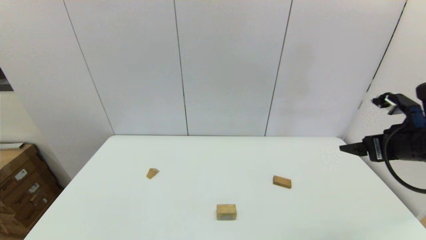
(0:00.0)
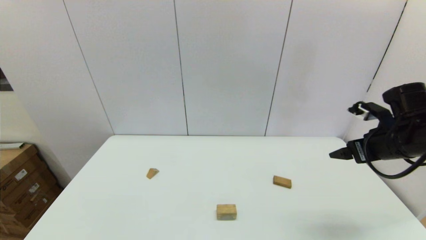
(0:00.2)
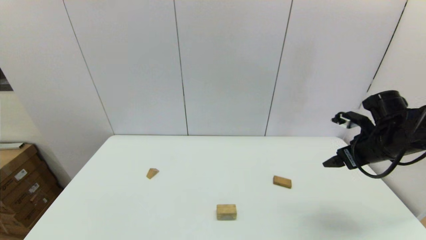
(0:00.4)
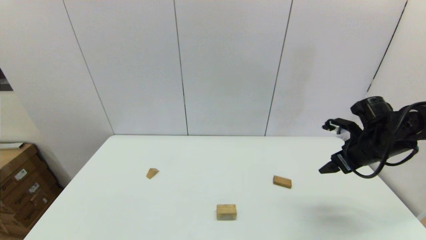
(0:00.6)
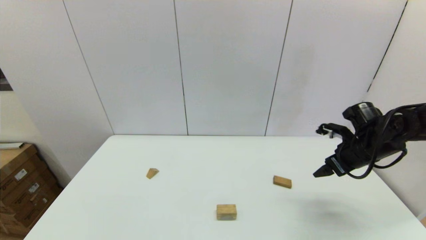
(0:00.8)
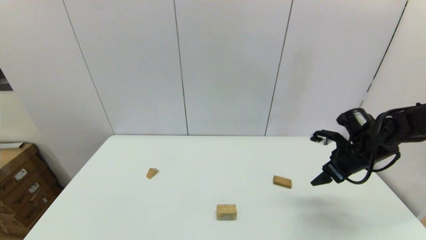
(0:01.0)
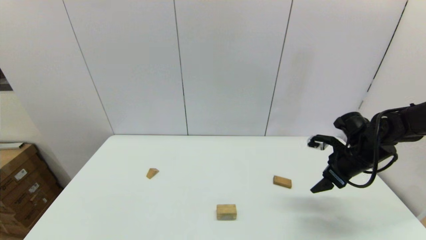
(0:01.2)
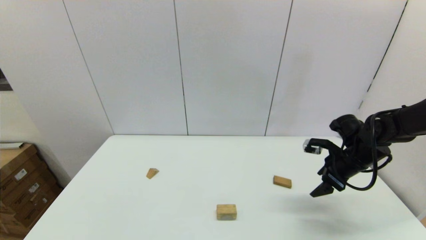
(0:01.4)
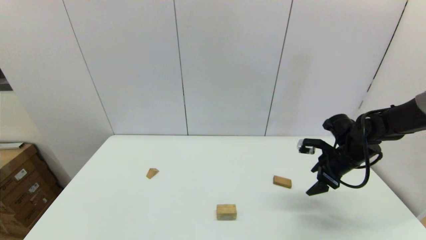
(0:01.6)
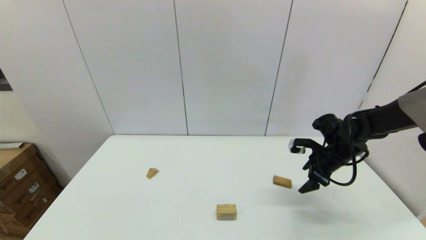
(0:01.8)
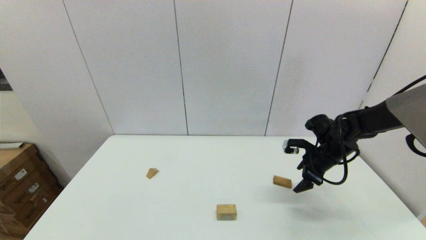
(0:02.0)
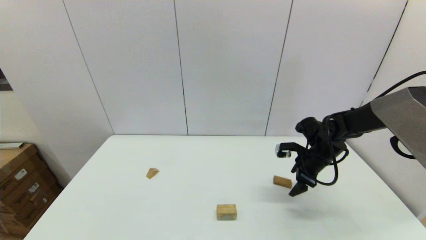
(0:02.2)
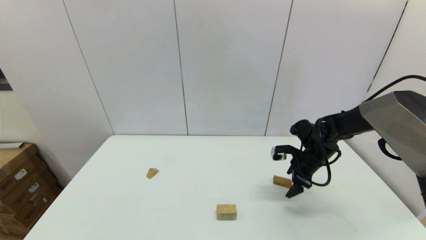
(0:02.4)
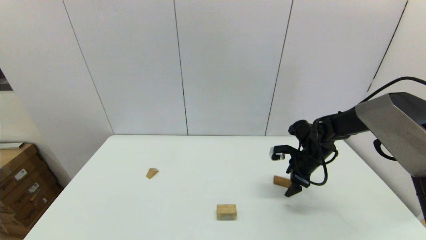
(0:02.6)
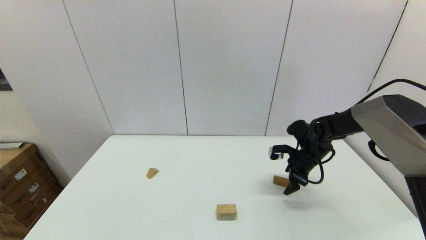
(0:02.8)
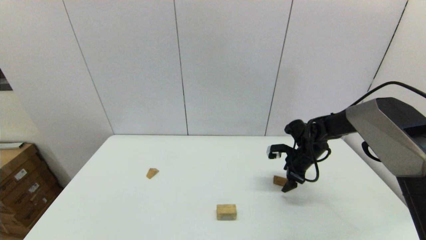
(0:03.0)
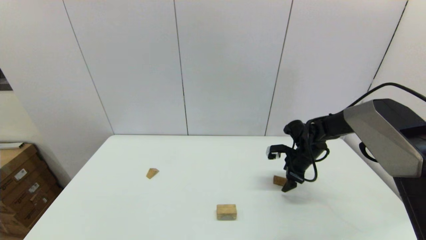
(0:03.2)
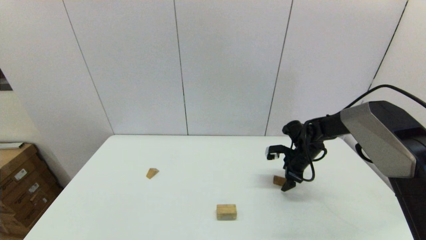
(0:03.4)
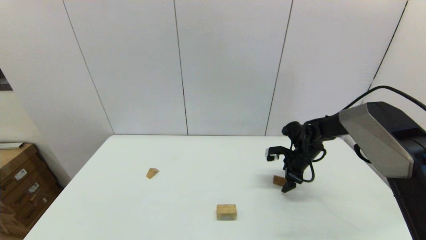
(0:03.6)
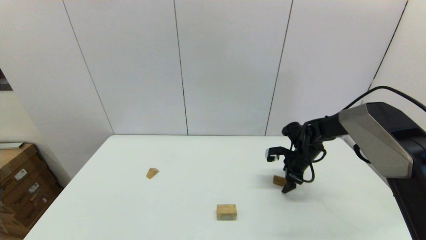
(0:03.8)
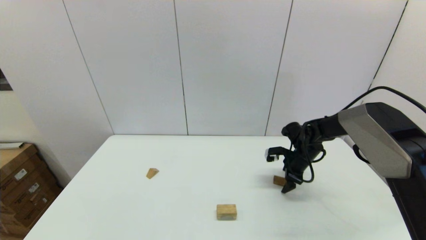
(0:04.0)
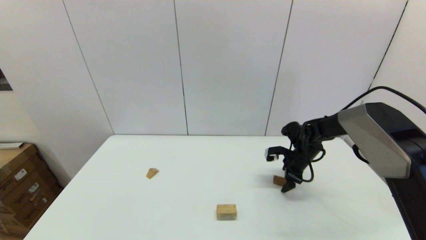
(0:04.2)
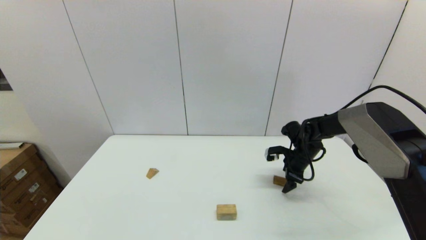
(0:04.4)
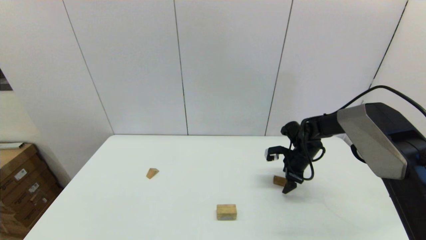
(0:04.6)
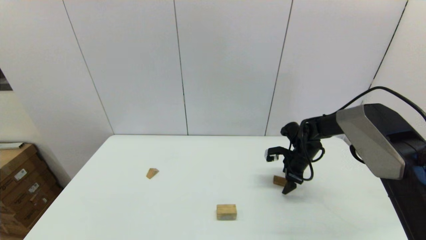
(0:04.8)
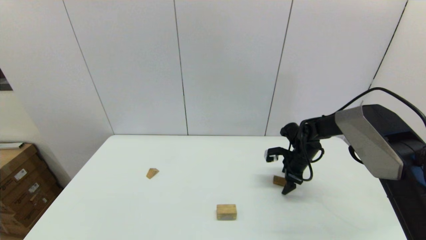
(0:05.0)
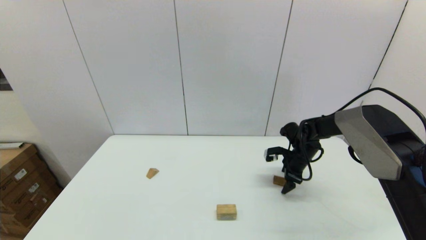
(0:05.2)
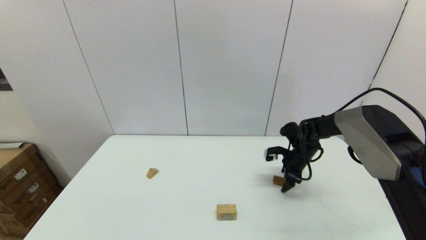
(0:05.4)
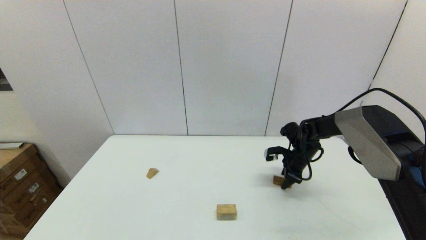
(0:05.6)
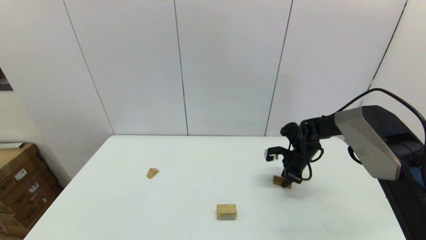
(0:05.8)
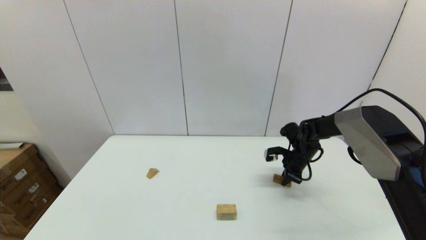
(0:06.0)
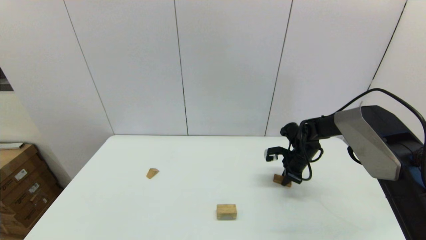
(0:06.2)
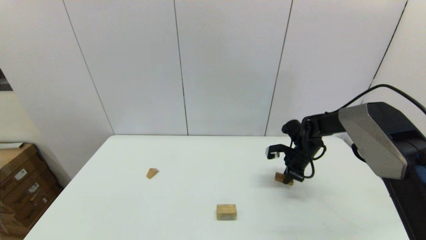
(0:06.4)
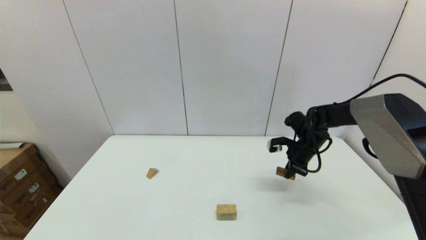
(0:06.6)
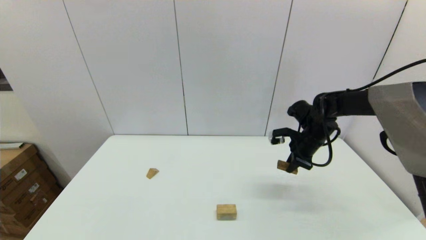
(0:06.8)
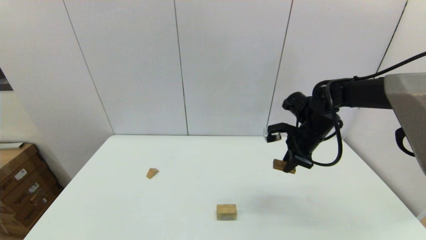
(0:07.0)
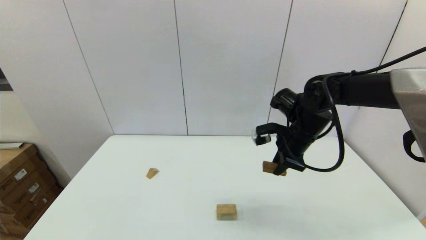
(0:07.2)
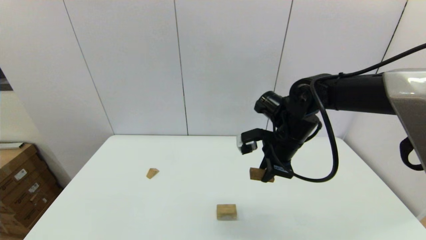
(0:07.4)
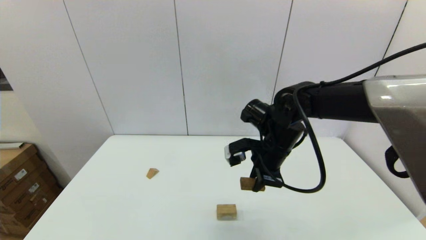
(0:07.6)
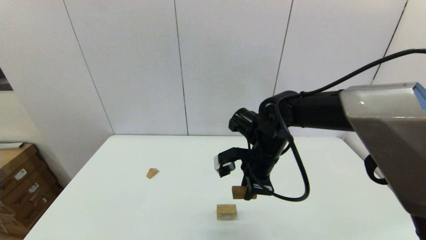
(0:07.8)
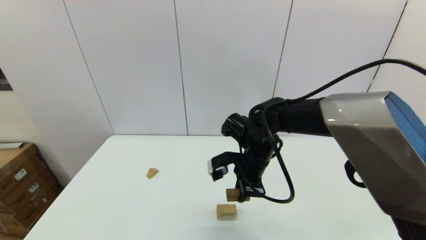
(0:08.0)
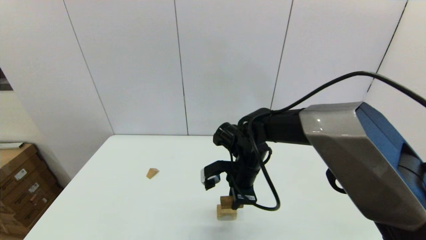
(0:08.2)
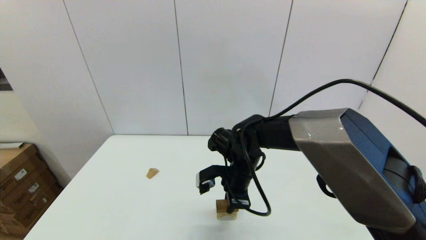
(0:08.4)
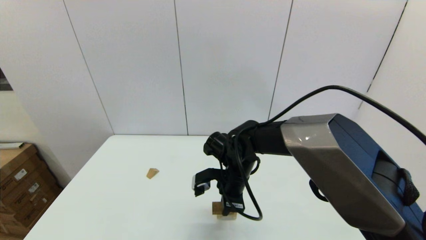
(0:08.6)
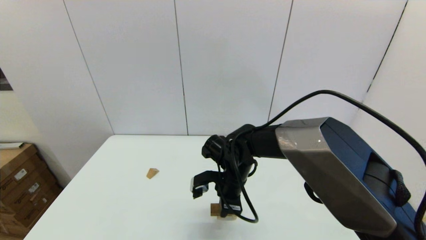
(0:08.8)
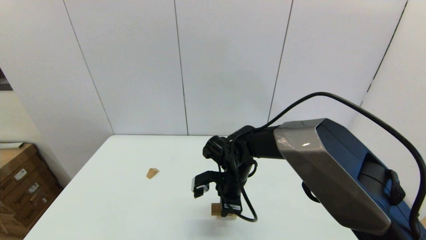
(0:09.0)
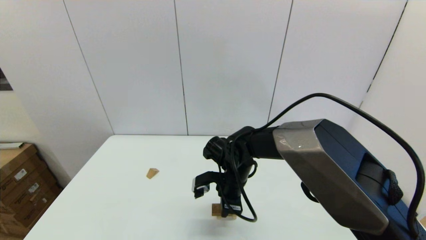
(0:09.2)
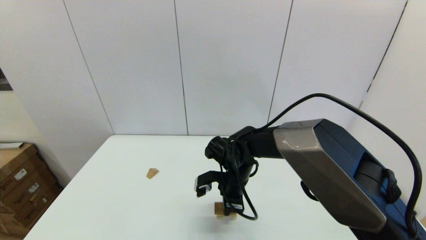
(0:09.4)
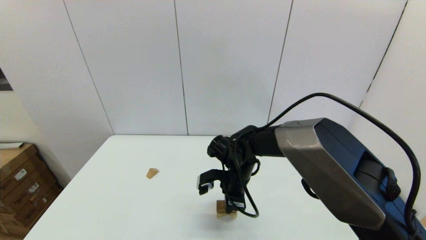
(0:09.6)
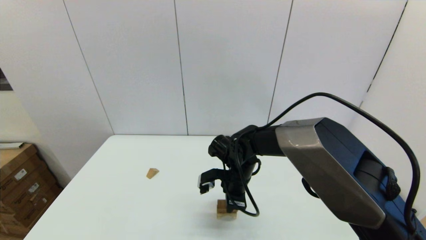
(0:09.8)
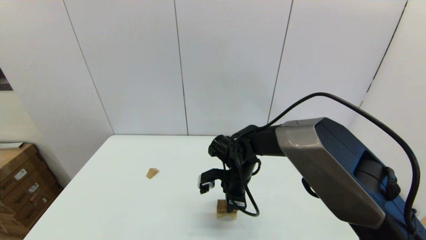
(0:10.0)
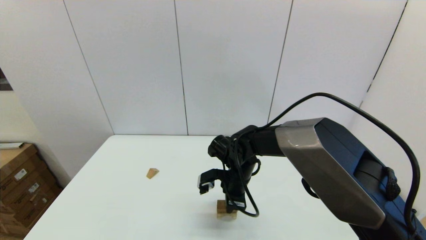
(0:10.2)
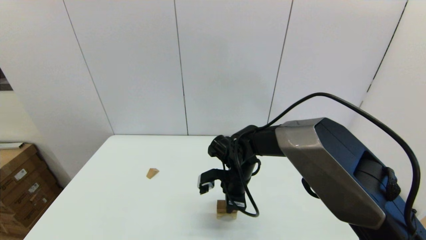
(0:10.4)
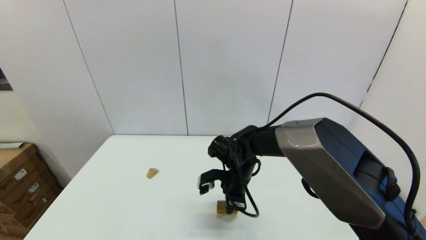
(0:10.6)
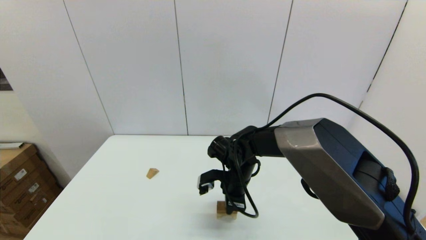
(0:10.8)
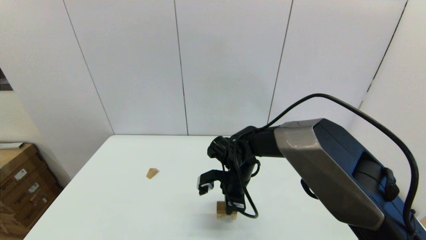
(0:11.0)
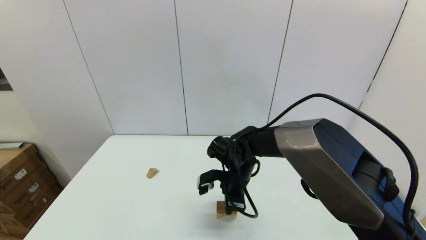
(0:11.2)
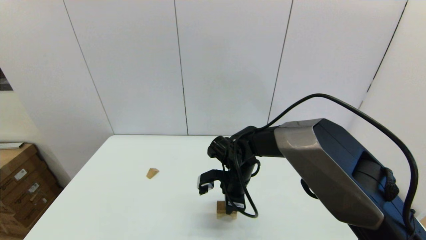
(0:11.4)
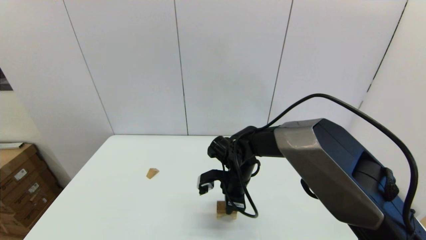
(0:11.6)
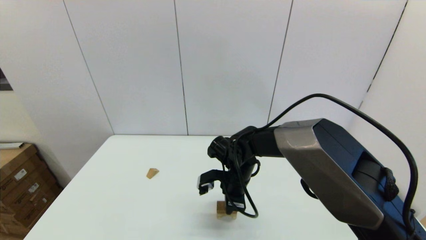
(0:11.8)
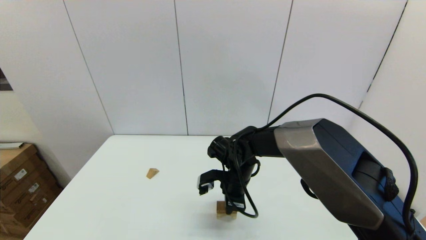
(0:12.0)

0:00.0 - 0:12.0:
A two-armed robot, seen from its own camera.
Task of the whole recording: place the arched building blocks in the center of the table, set up the rectangular building blocks, and then set up the triangular building blocks.
Step, 0:00.0 - 0:05.8: Grasp the box-shaped block with the right gripper.
0:00.0 - 0:01.6: The right gripper goes about 15 cm downward and forward.
0:01.6 - 0:03.0: The right gripper is displaced forward, downward and to the left by approximately 10 cm.
0:03.0 - 0:04.4: There are only small adjustments of the grippers.
0:04.4 - 0:06.0: The right gripper closes its fingers.
0:06.0 - 0:07.6: The right gripper travels to the left, upward and backward by some 25 cm.
0:07.6 - 0:09.0: The right gripper travels downward and to the left by about 15 cm.
0:09.0 - 0:10.4: The grippers make only small movements.
0:10.4 - 0:12.0: Neither gripper changes place.

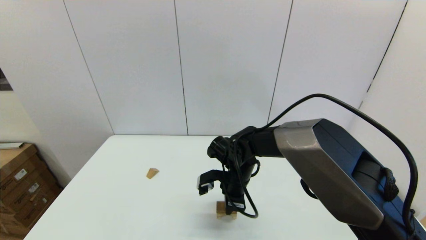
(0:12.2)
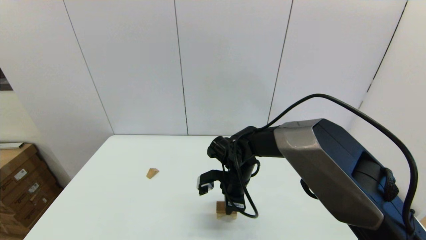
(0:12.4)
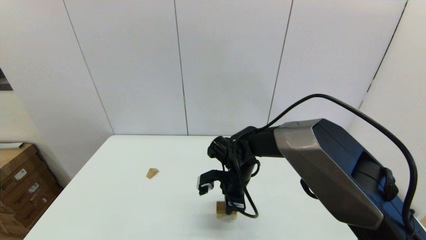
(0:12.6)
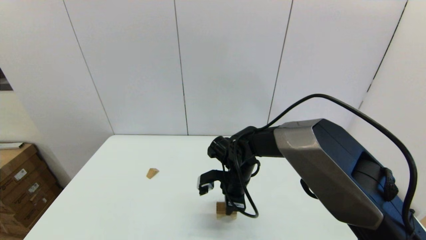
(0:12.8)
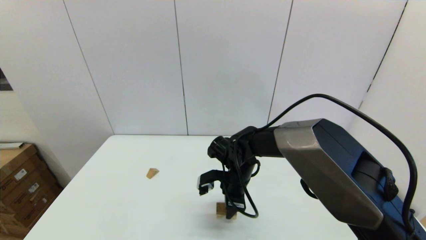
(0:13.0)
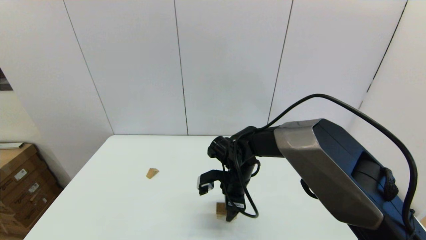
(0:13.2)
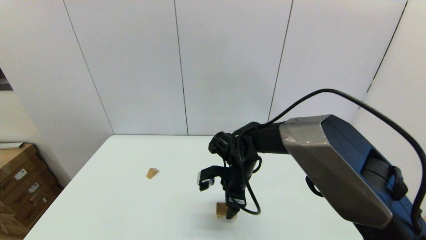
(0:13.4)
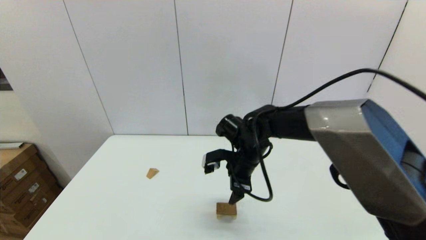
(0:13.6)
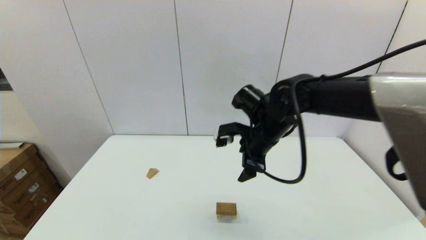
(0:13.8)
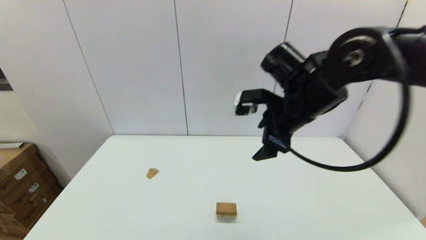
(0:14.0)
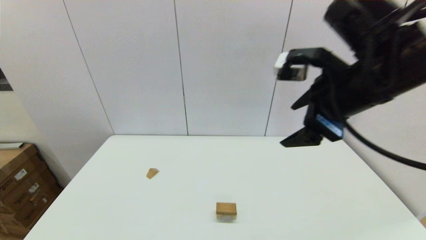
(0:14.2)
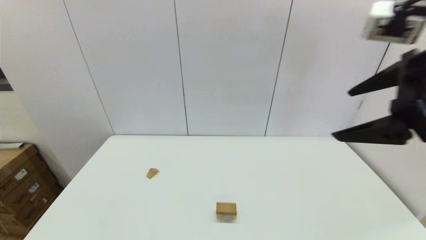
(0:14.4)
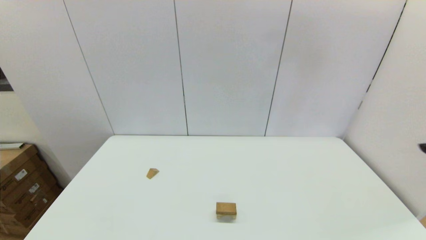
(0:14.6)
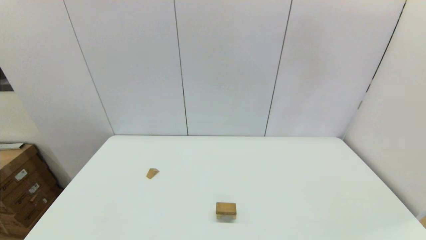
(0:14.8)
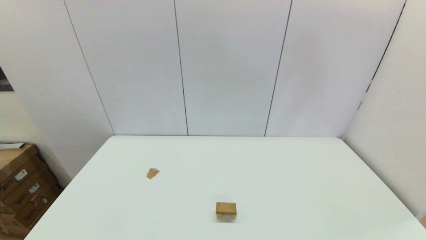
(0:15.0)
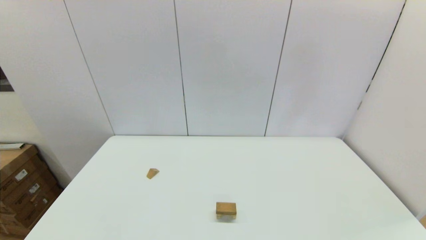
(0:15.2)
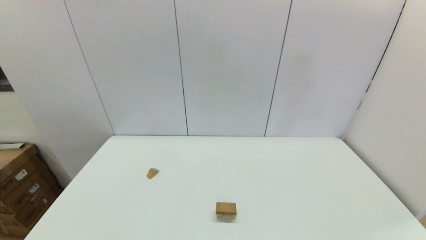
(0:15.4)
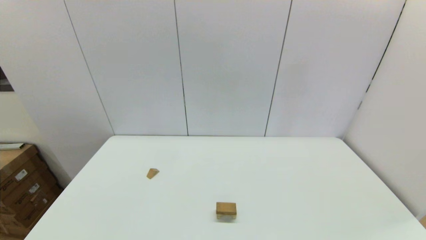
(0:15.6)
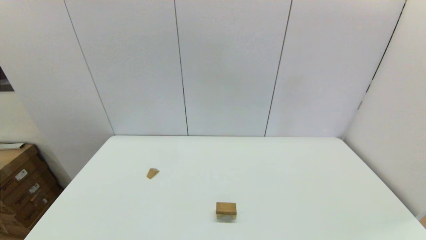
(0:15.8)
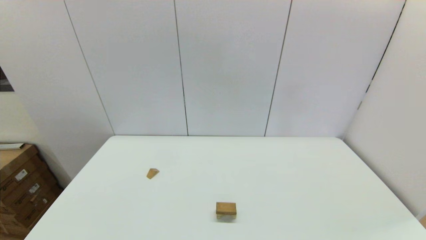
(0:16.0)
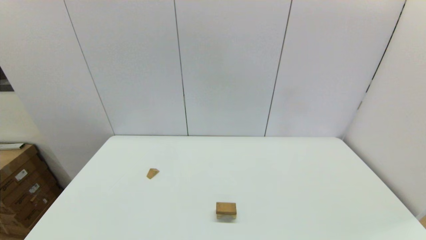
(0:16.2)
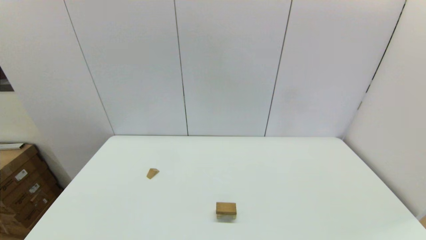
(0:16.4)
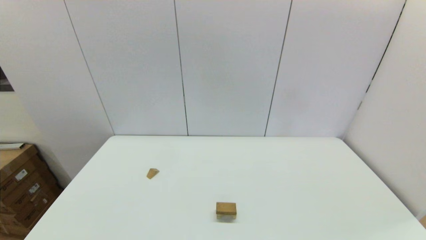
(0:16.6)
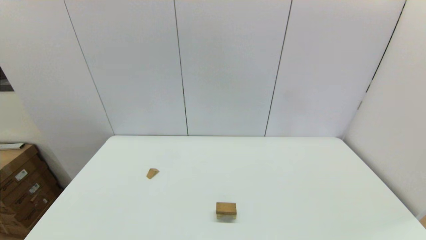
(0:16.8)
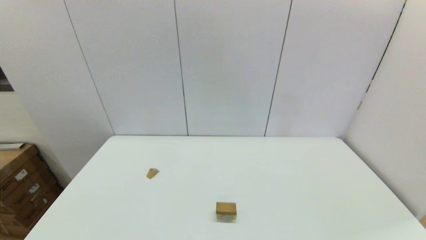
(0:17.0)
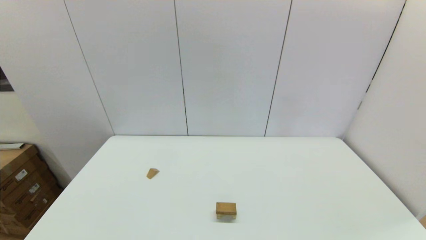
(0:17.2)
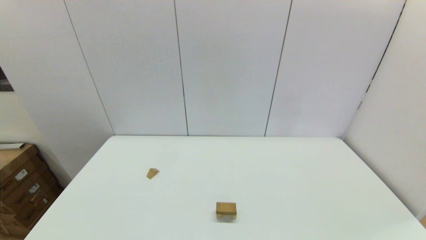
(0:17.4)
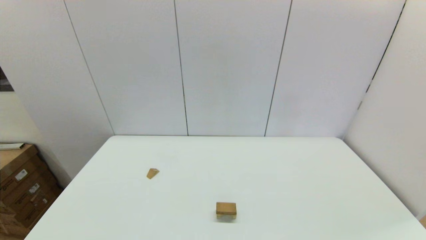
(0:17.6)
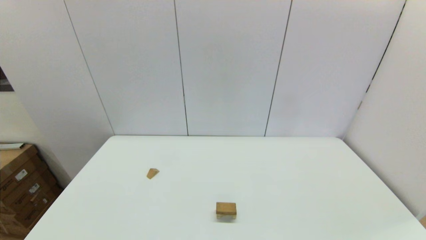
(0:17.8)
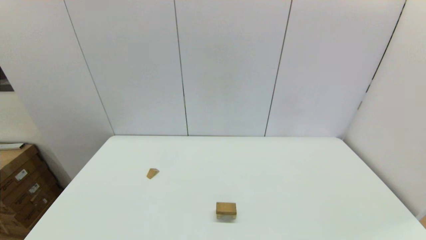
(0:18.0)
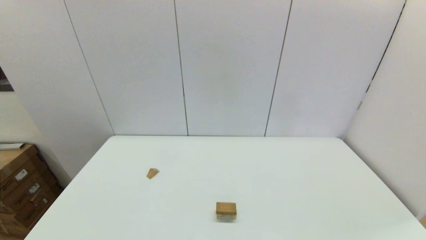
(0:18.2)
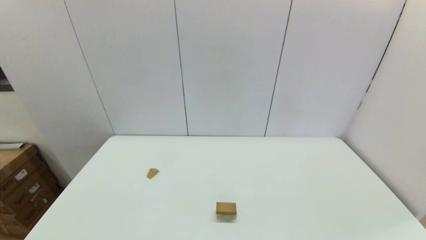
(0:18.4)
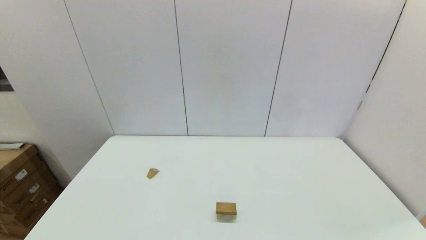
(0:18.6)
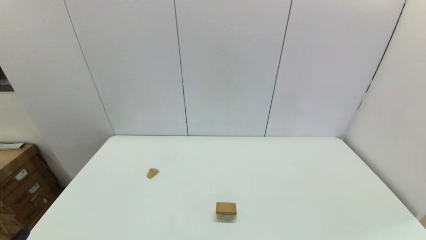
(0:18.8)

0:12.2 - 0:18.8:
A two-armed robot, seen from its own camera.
Task of the whole recording: place the arched building blocks in the center of the table, set up the rectangular building blocks, and then set up the triangular building blocks.
0:12.2 - 0:13.8: The right gripper shifts roughly 15 cm upward, and opens up.
0:13.8 - 0:15.4: The right gripper heads backward and to the right, covering some 50 cm.
